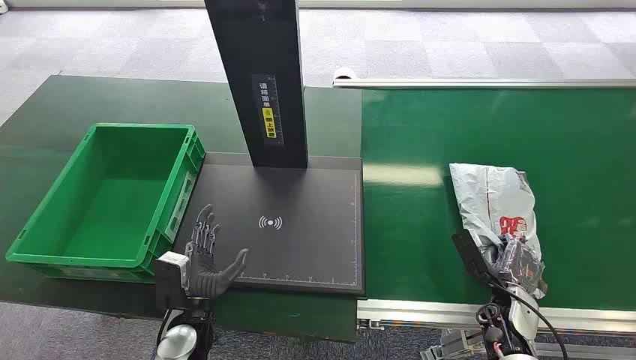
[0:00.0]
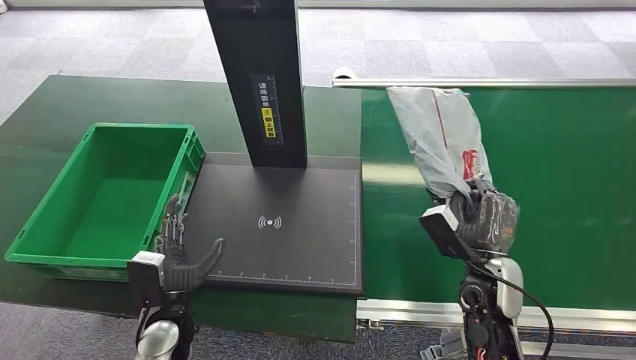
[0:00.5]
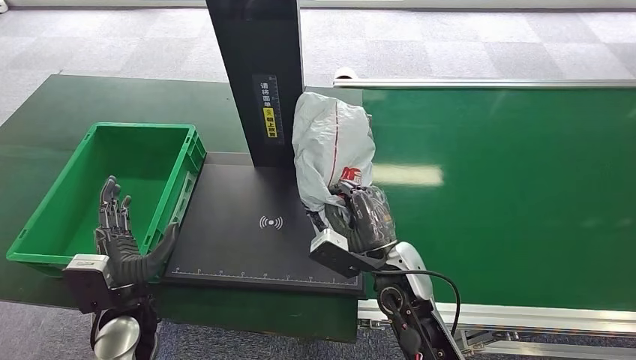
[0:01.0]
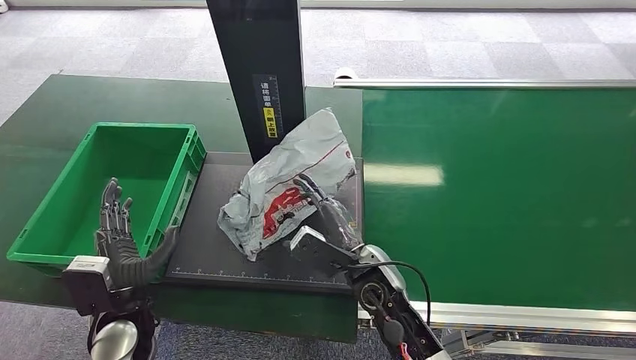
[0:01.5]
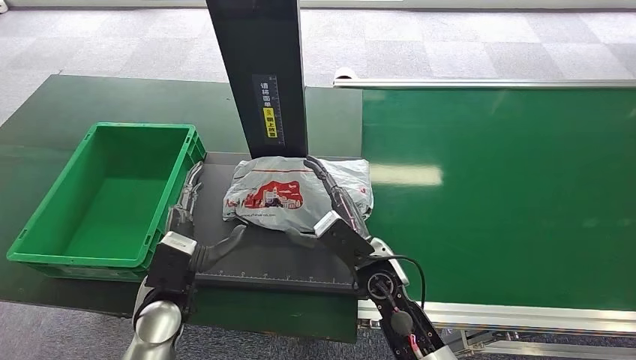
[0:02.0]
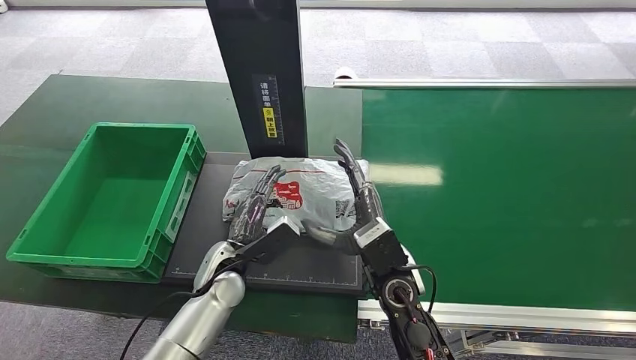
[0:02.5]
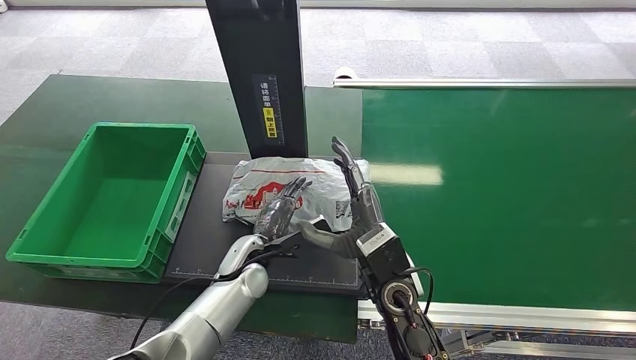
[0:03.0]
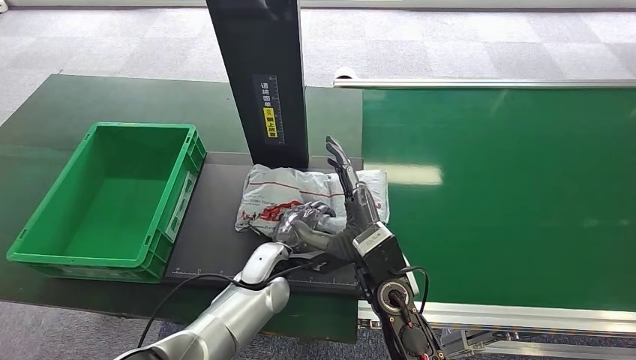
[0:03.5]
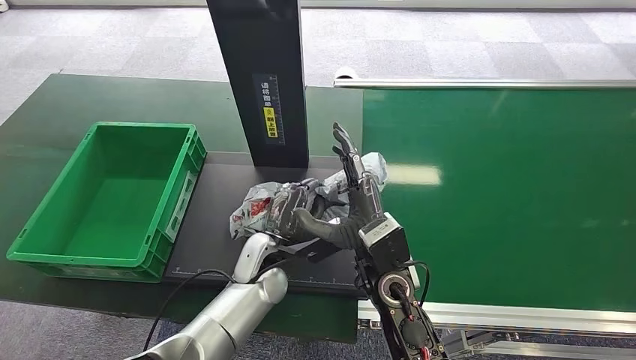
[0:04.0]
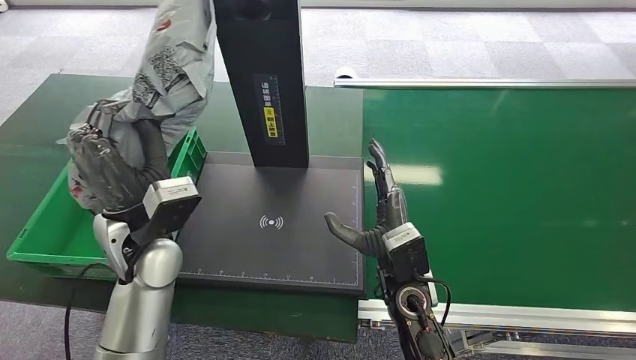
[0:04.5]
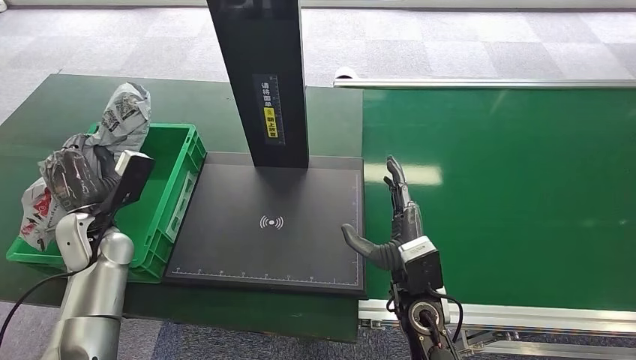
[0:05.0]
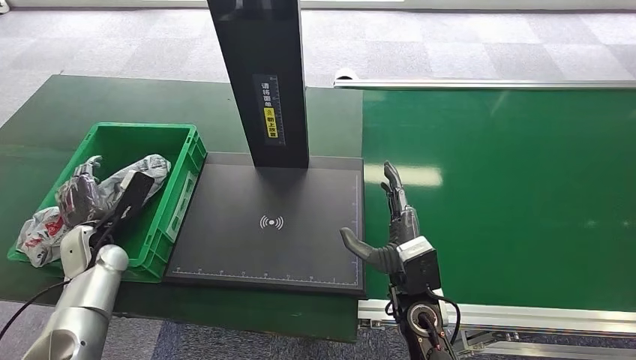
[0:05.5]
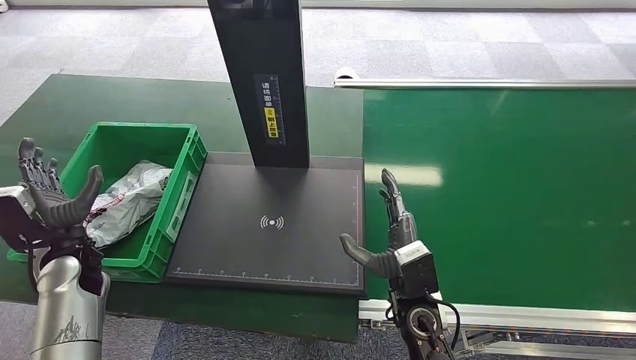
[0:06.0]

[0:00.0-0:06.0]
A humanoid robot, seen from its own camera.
Step, 0.0 to 1.0 s: Pick up the package from the conveyor belt.
Step, 1.5 to 3.5 s: Place the package onto the inbound machine.
Step, 4.0 to 4.5 s: Pick up the package from the inbound machine.
Step, 5.0 to 6.0 s: Place the package into the parcel locker.
2.0 to 4.0 s: The right hand changes place by some 5 cm, while the left hand travels to the right and forward by about 15 cm.
4.0 to 6.0 s: The left hand goes about 30 cm to the left. The right hand heads downward and to the right, covering roughly 10 cm.

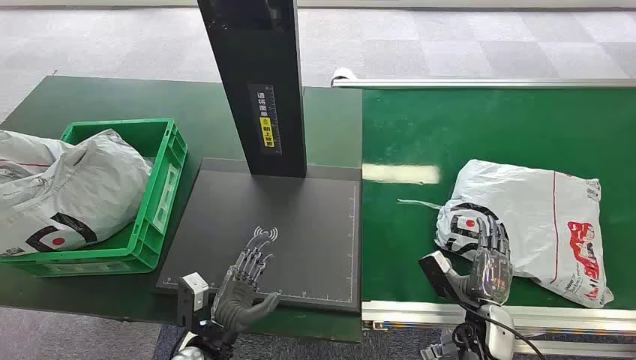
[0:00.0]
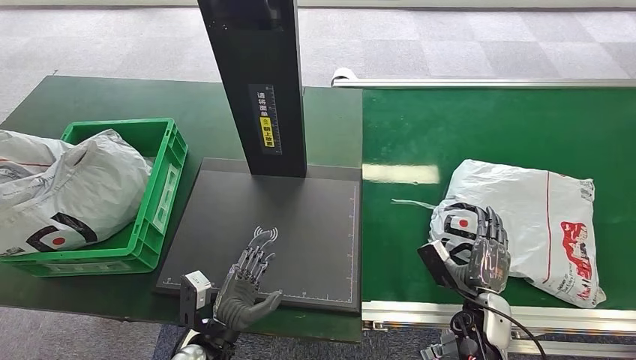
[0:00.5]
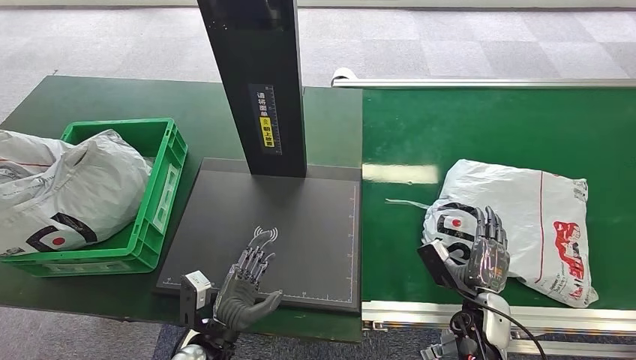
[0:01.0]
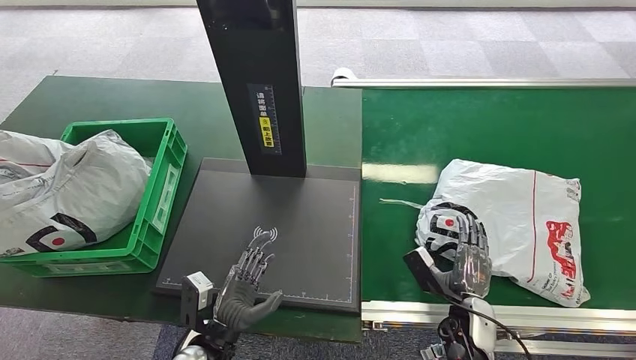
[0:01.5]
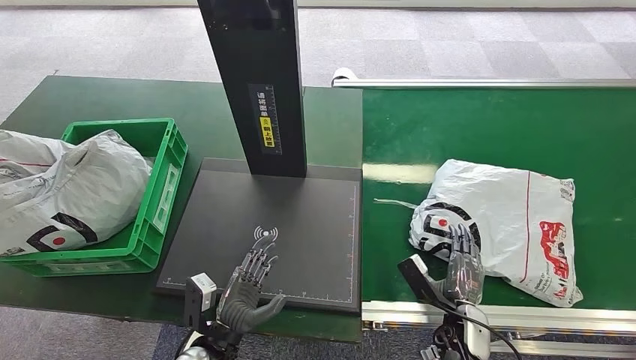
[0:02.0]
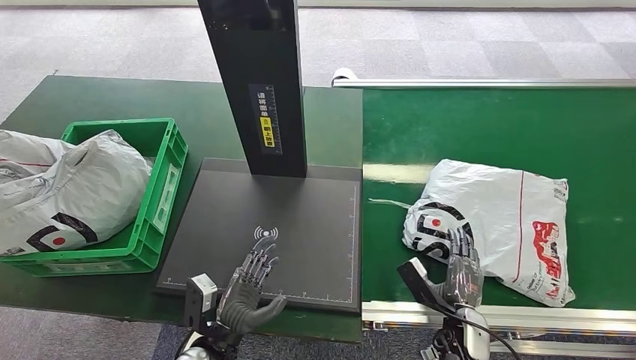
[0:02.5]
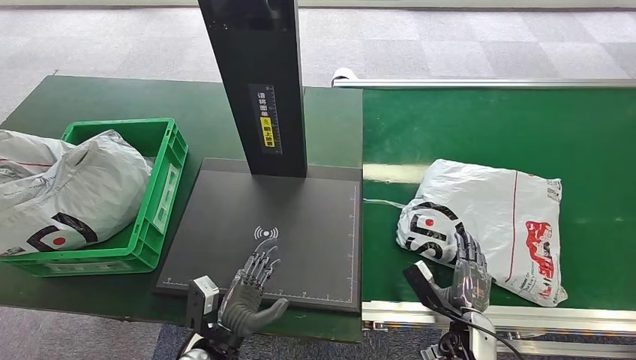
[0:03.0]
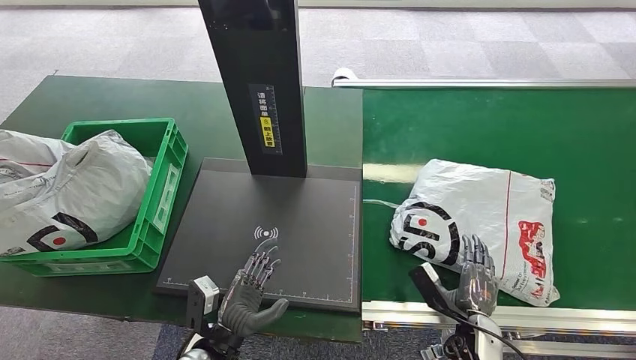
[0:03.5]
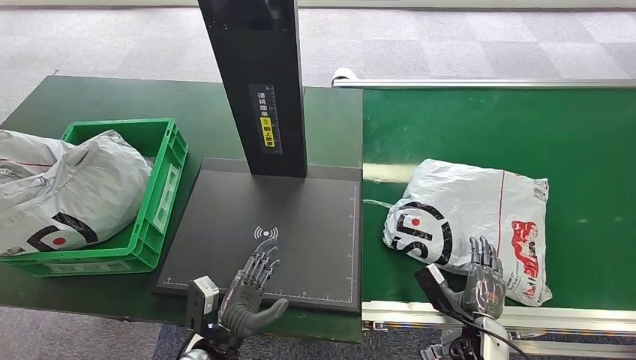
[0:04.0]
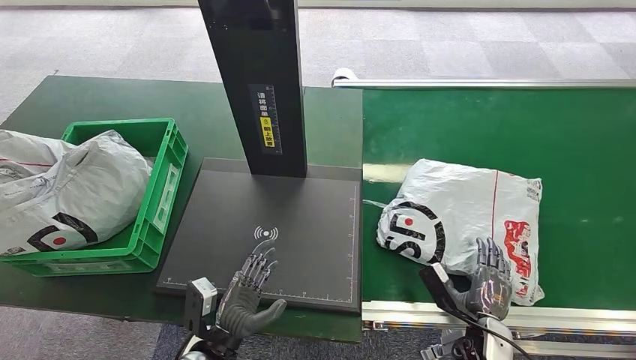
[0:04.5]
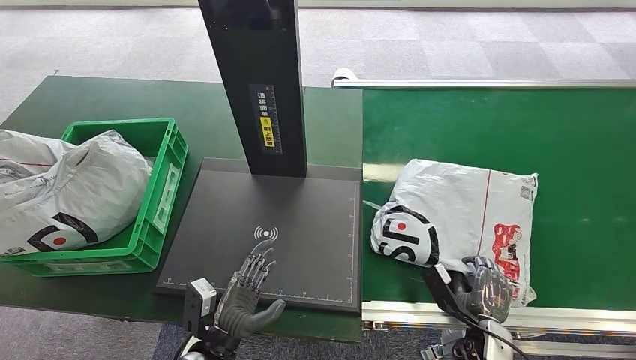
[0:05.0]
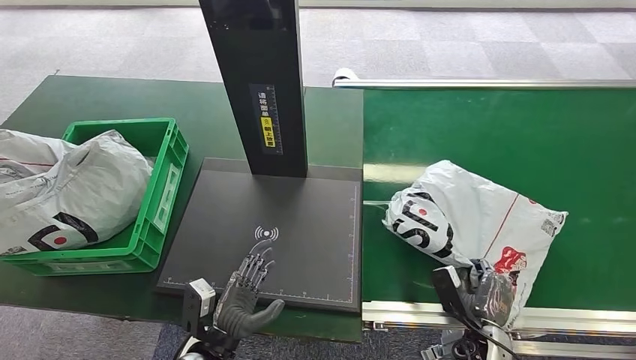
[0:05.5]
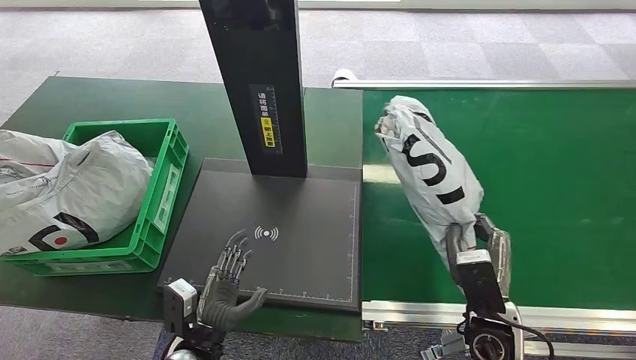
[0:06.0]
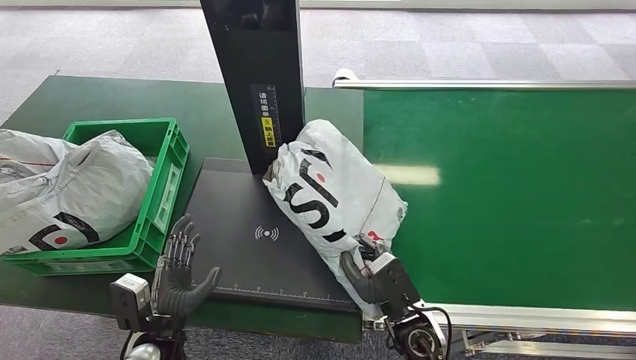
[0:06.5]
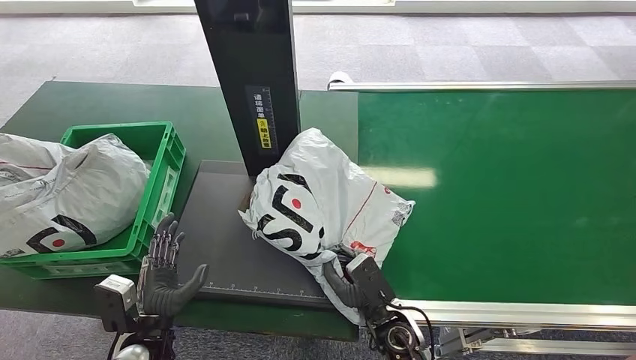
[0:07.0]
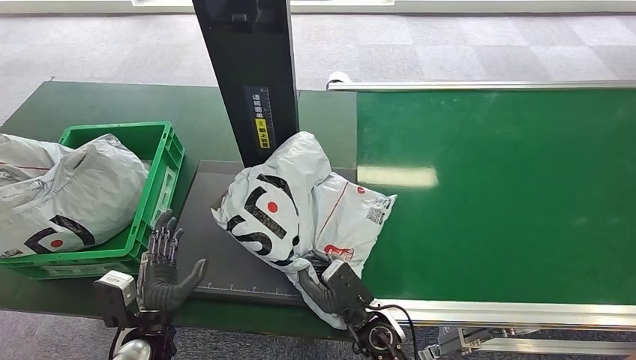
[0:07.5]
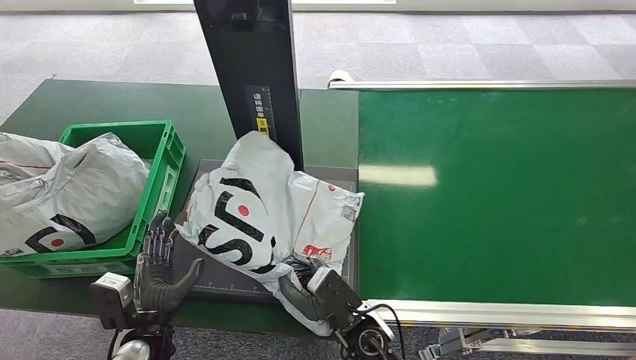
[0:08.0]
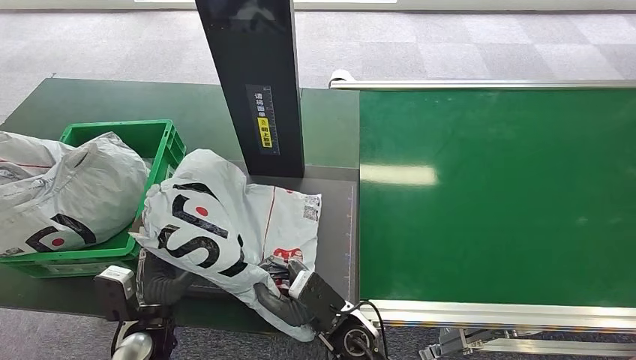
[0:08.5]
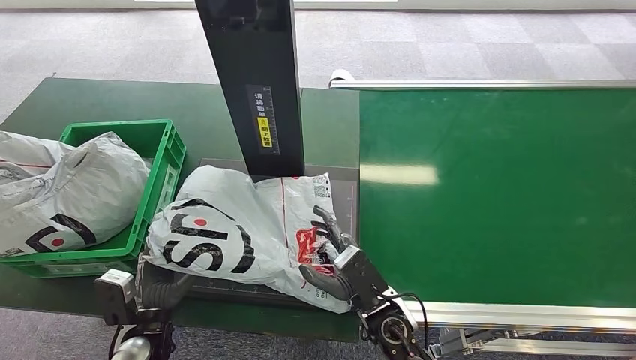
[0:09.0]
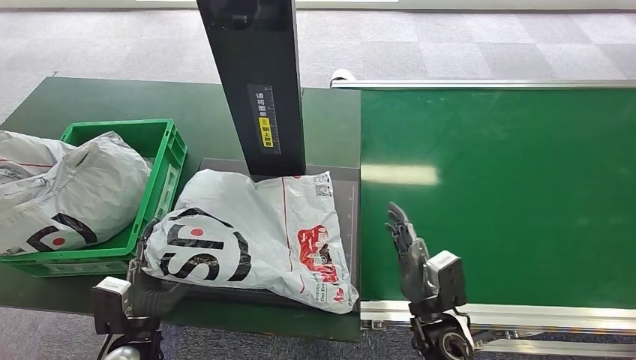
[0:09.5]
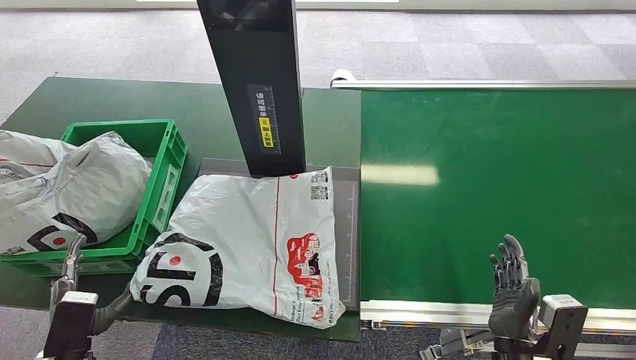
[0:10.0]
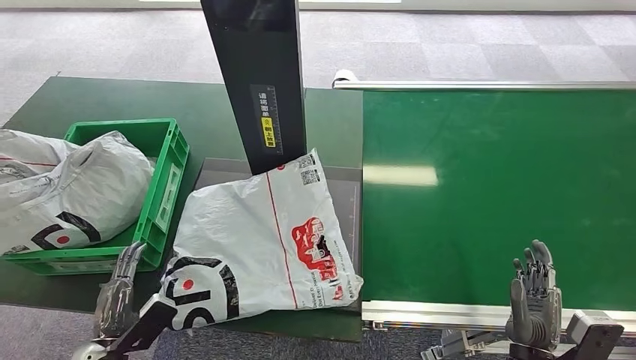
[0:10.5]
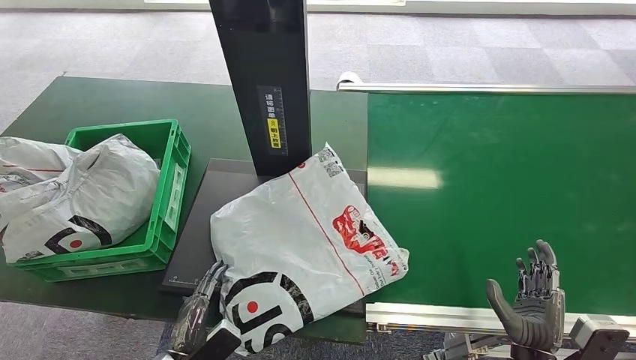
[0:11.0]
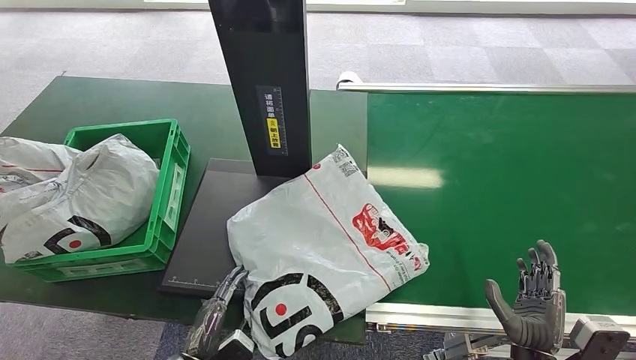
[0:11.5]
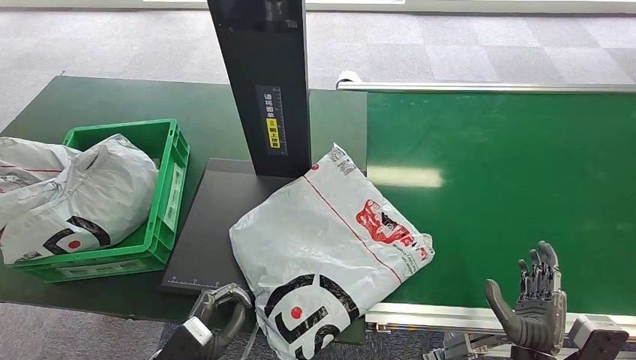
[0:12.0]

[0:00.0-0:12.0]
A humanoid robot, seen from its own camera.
Step, 0.0 to 6.0 s: Pick up the package from the conveyor belt.
Step, 6.5 to 10.5 s: Place the package onto the inbound machine.
2.0 to 4.0 s: The hands move only a little.
4.0 to 6.0 s: The right hand is displaced upward by roughly 10 cm.

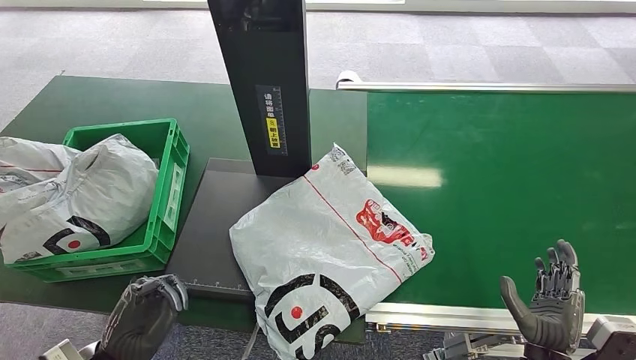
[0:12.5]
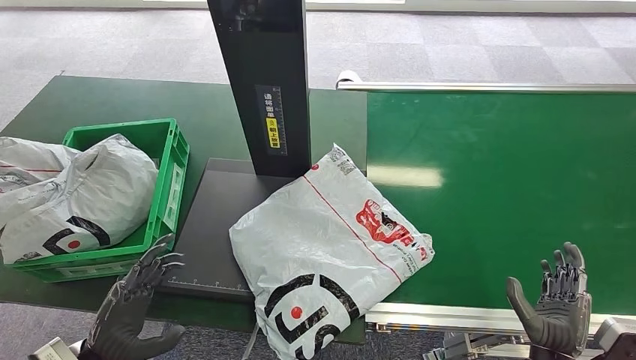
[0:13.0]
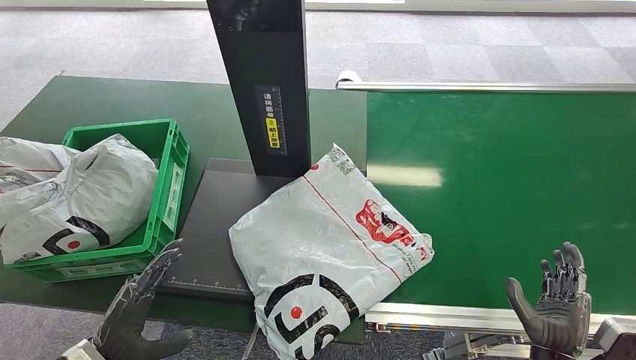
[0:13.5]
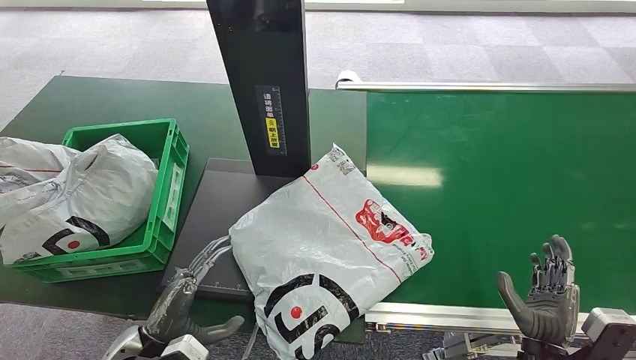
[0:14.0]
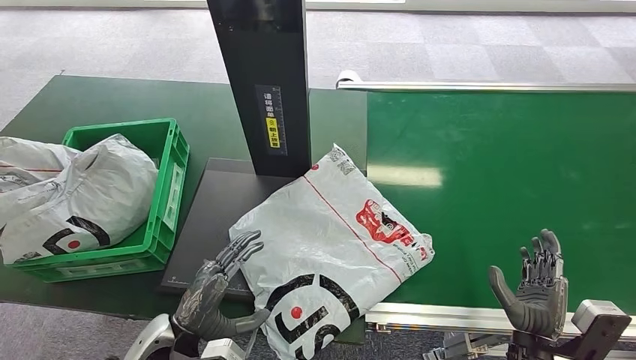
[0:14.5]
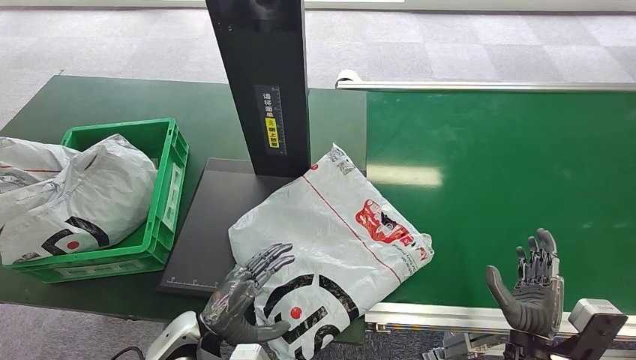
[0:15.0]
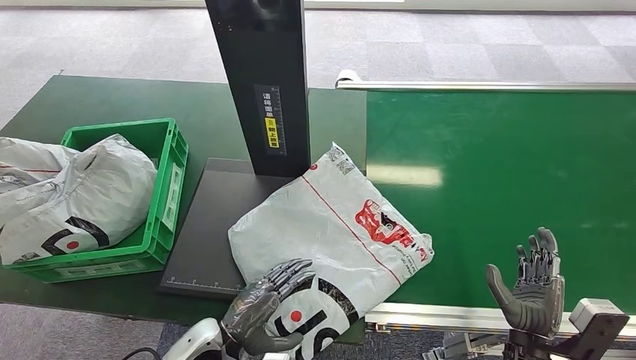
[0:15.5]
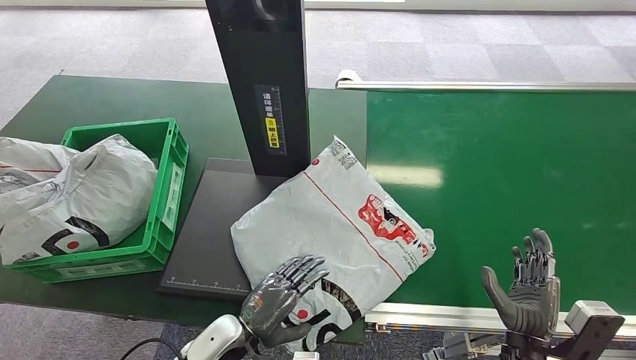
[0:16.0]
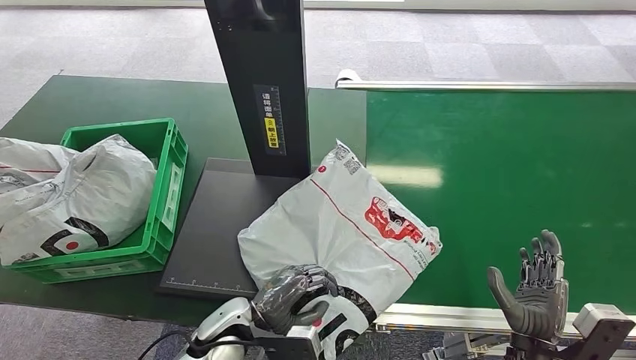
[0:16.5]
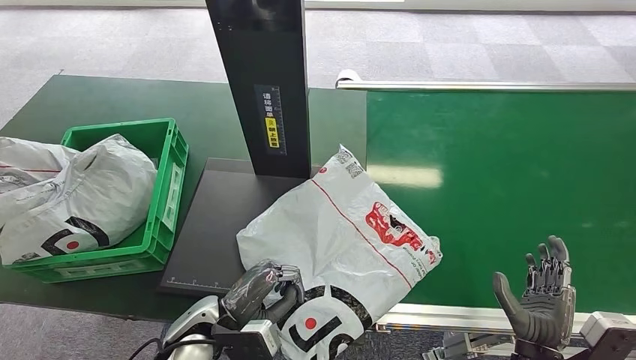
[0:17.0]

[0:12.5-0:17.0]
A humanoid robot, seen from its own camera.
12.5 to 14.5 s: The left hand shifts roughly 10 cm to the right.
